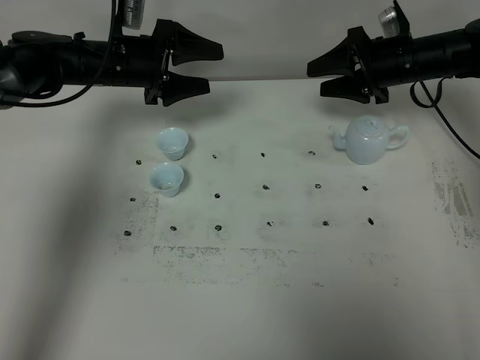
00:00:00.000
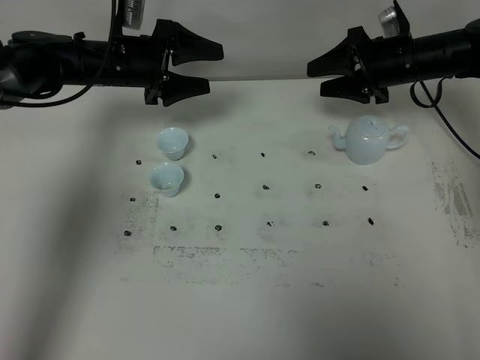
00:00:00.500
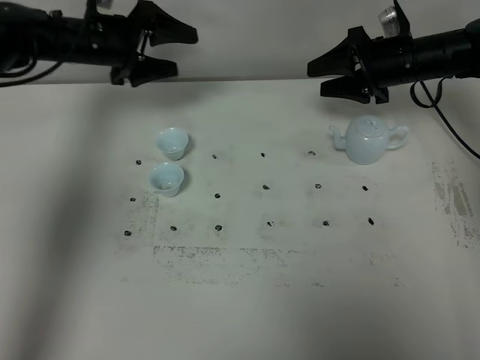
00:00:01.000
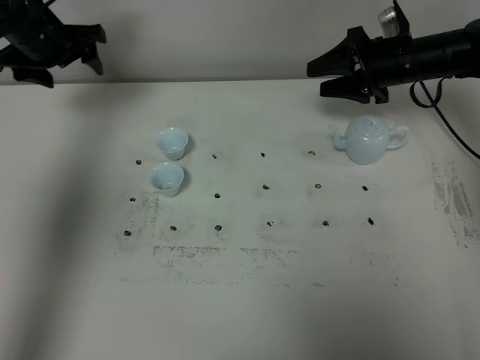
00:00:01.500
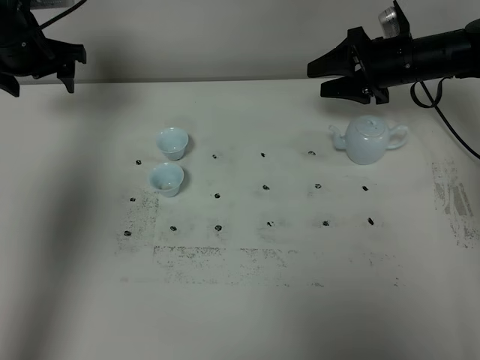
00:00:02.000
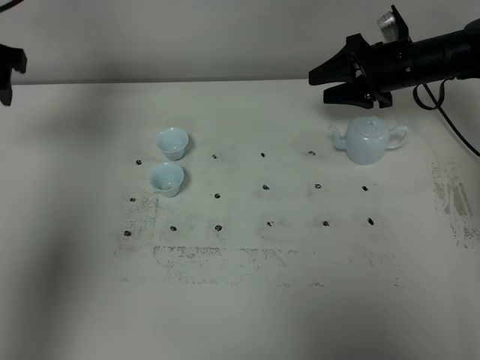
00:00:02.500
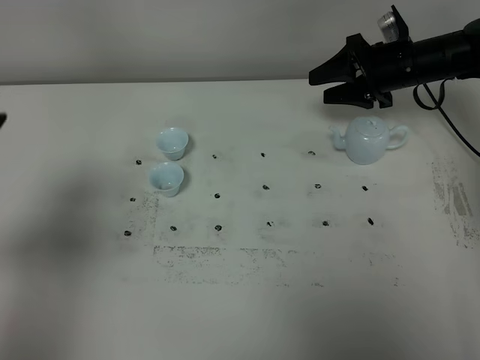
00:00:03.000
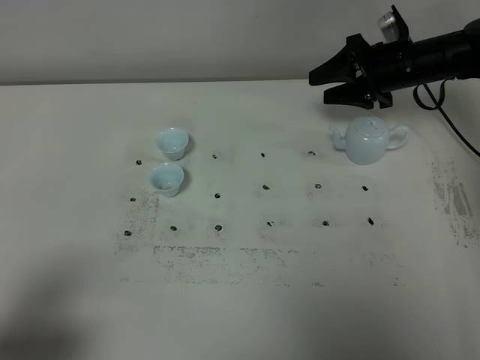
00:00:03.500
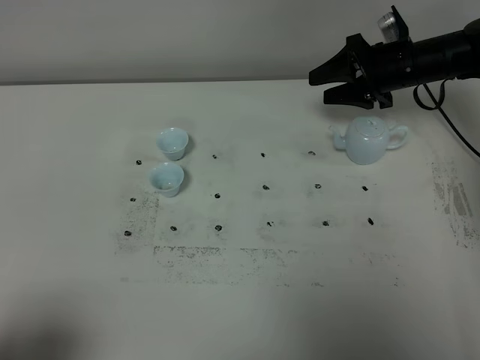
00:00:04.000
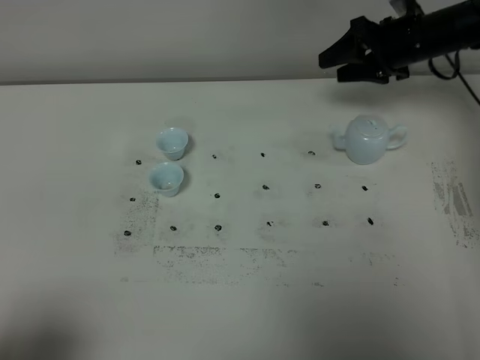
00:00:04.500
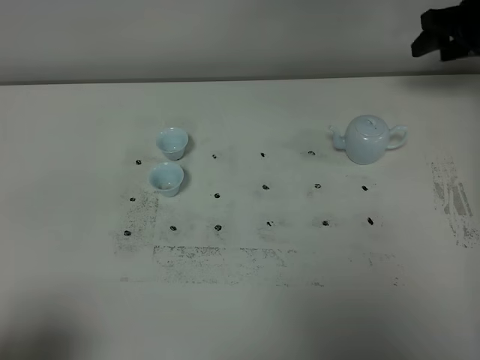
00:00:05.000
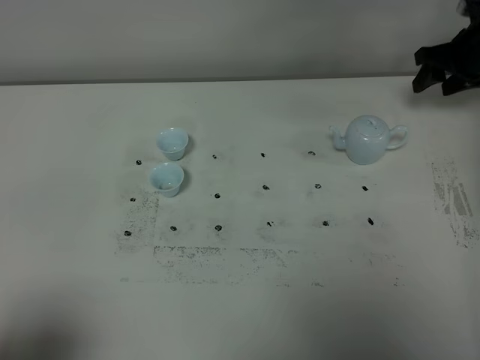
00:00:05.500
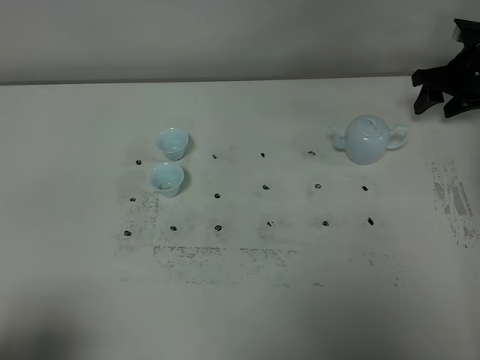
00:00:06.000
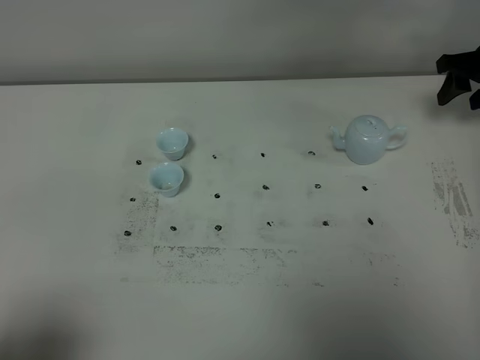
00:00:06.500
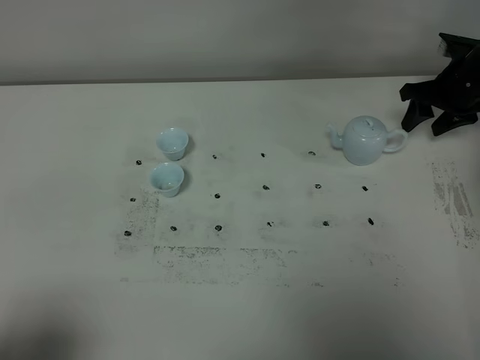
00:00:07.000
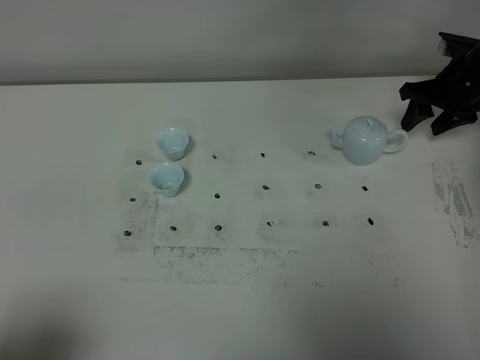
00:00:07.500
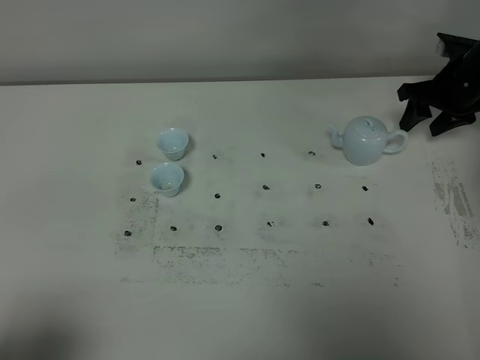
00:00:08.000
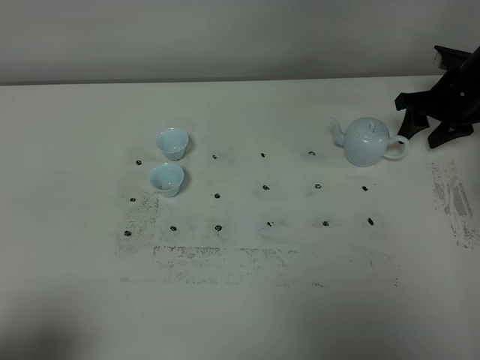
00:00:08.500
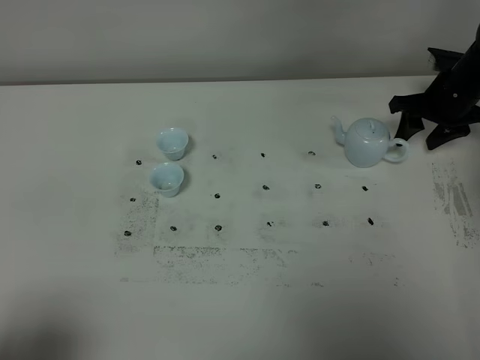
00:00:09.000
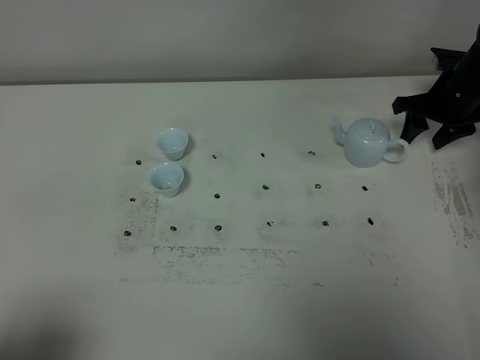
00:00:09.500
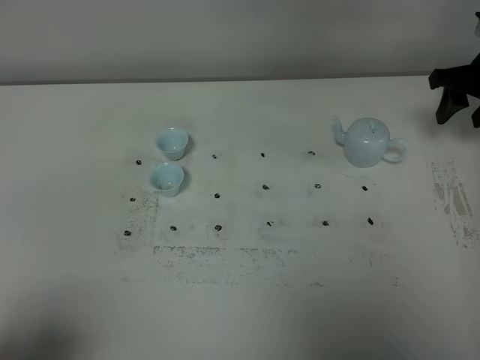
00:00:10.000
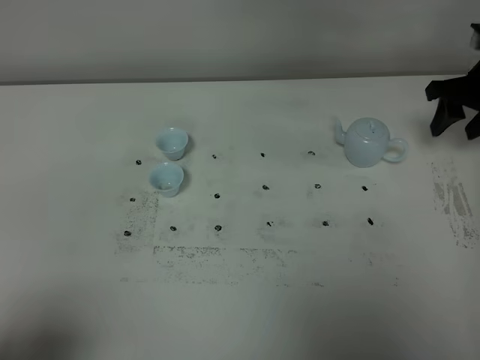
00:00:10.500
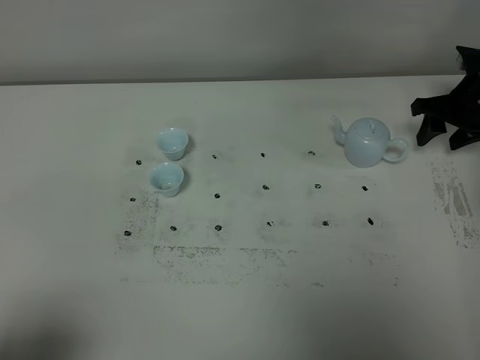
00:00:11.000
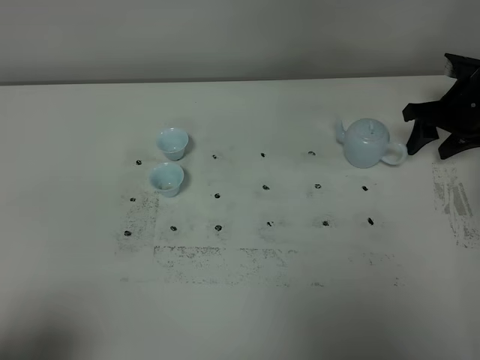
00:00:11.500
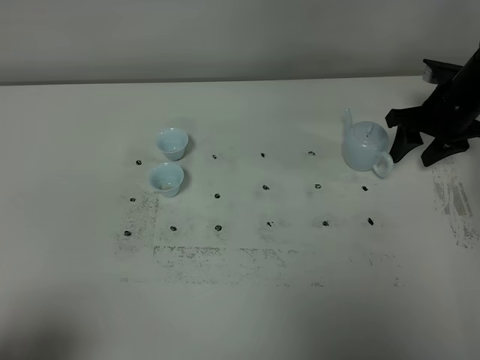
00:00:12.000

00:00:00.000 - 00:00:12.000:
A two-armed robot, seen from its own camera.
Task of the whole recording: grasp the blue porcelain teapot and pour the tea into the two blue porcelain teacups one by one, put the blue porcelain teapot back in its original place.
00:00:00.000 - 00:00:02.000: The left gripper heads to the left and upward, covering about 15 cm.
00:00:02.000 - 00:00:04.000: The left gripper goes approximately 50 cm backward.
00:00:04.000 - 00:00:06.000: The right gripper moves to the right, some 10 cm.
00:00:06.000 - 00:00:08.000: The grippers move only a little.
00:00:08.000 - 00:00:10.000: The right gripper moves upward and backward, roughly 10 cm.
00:00:10.000 - 00:00:12.000: The right gripper heads downward, covering about 5 cm.

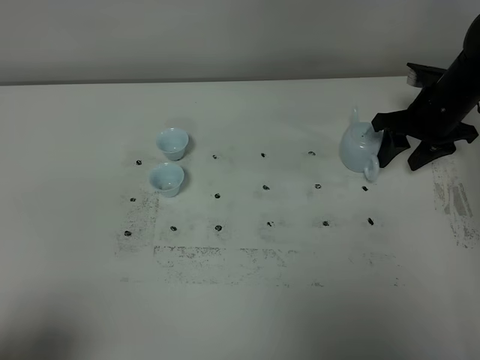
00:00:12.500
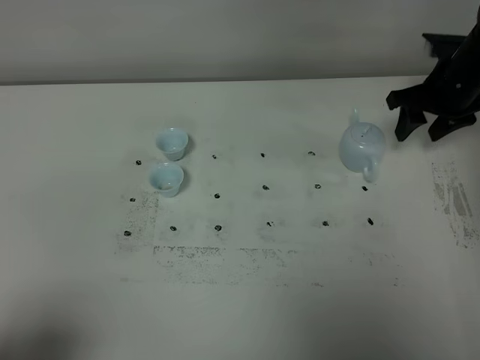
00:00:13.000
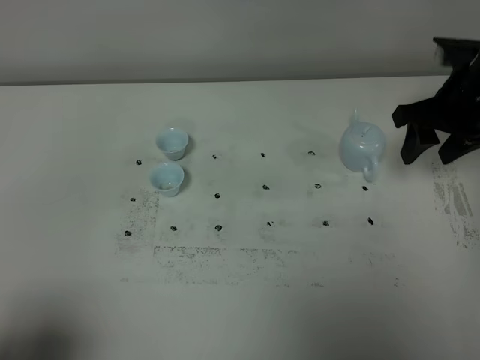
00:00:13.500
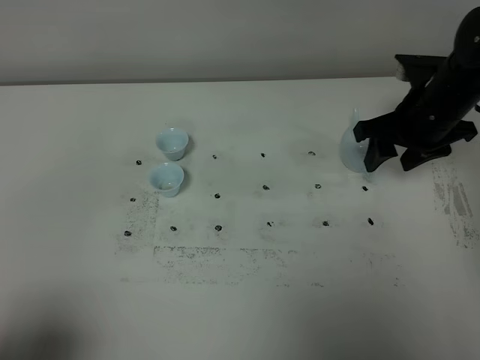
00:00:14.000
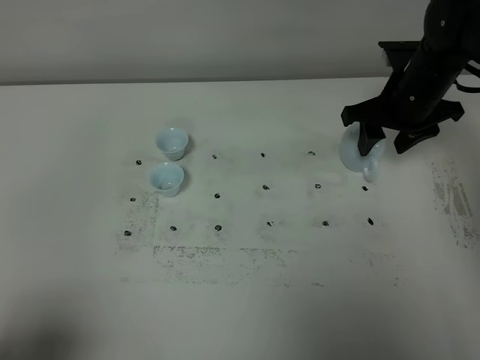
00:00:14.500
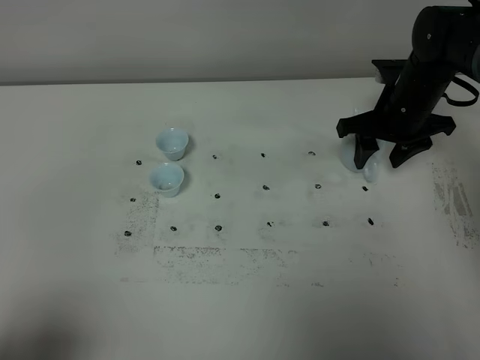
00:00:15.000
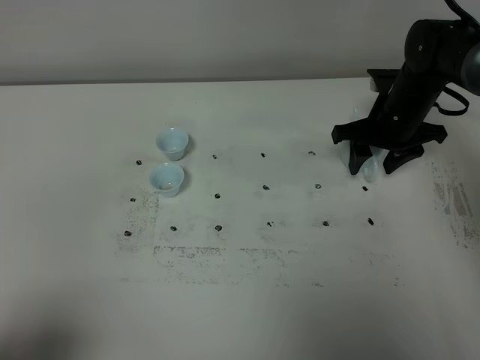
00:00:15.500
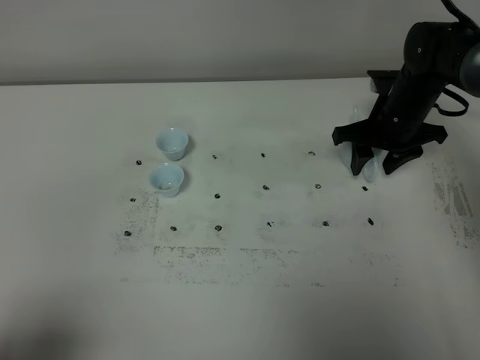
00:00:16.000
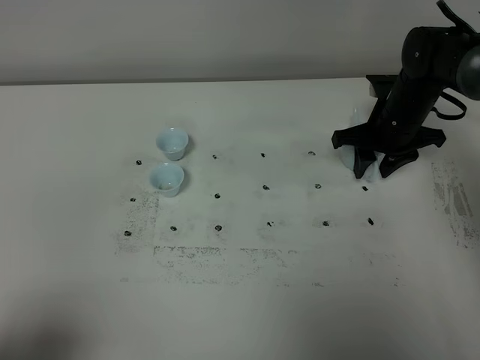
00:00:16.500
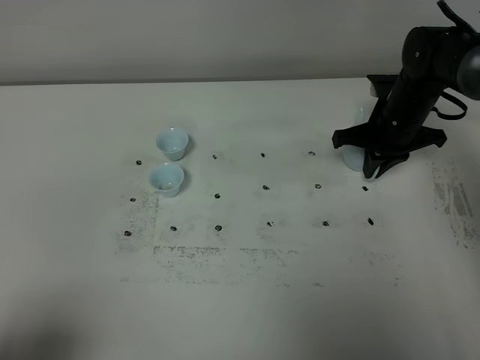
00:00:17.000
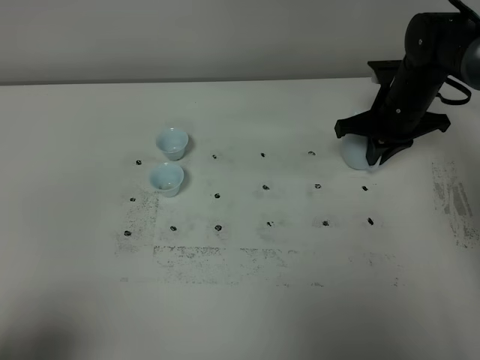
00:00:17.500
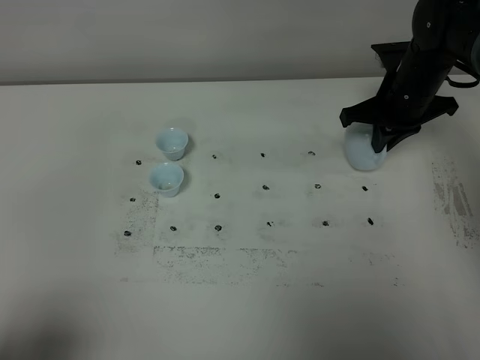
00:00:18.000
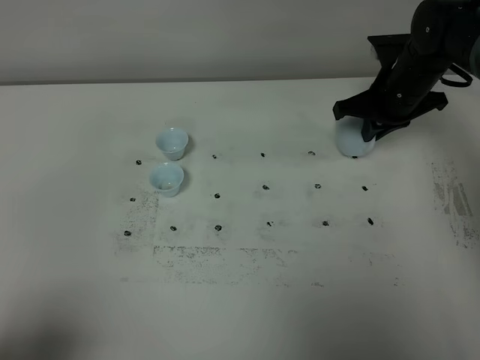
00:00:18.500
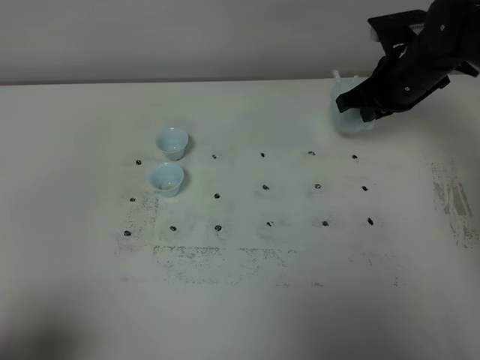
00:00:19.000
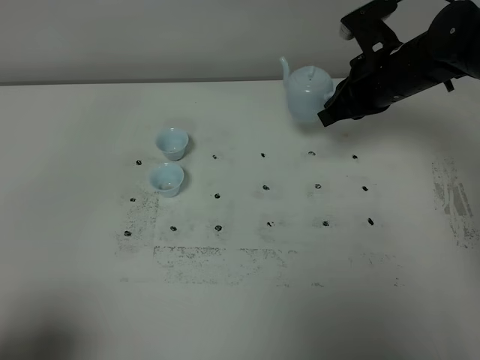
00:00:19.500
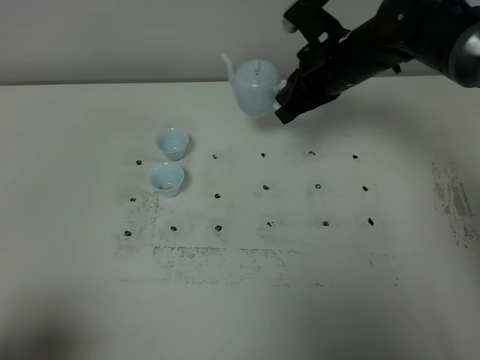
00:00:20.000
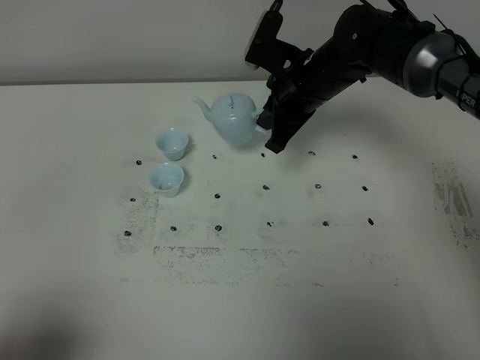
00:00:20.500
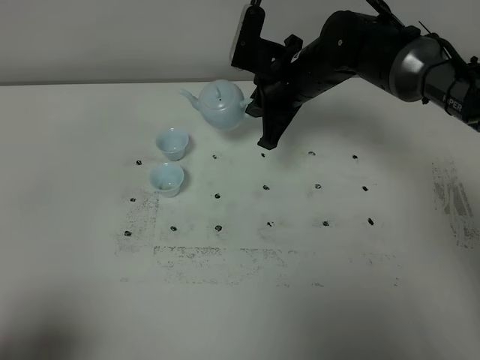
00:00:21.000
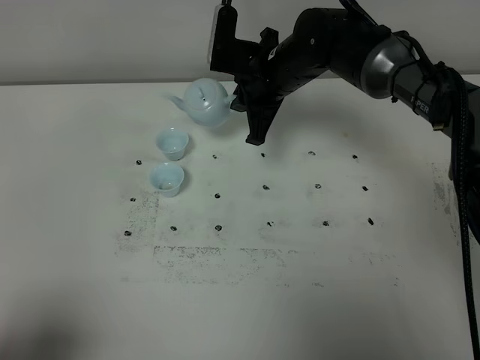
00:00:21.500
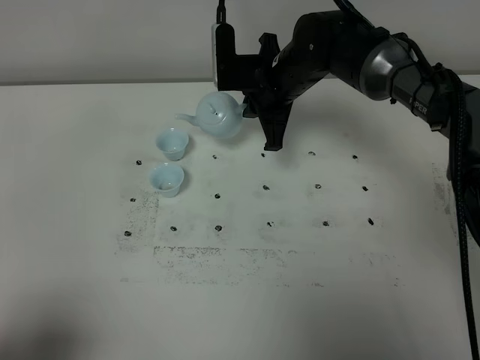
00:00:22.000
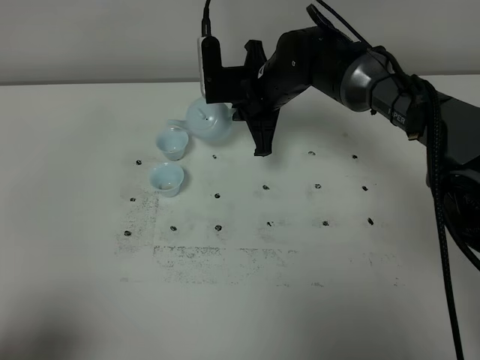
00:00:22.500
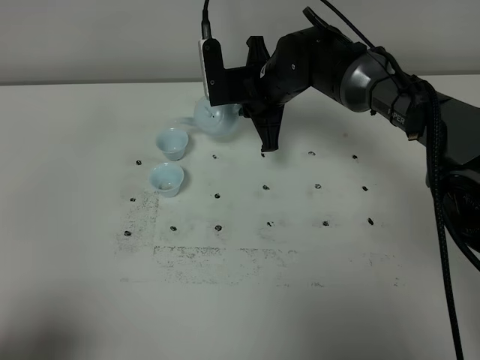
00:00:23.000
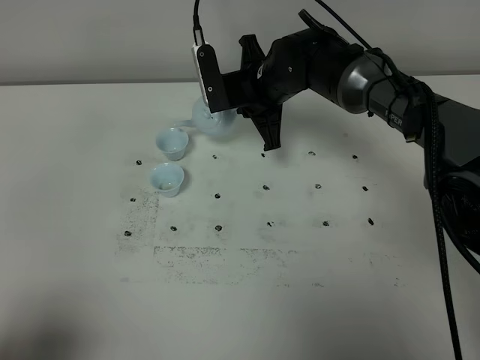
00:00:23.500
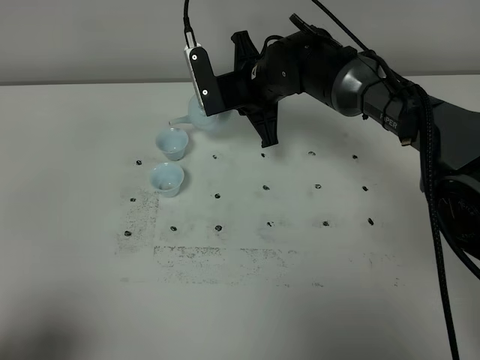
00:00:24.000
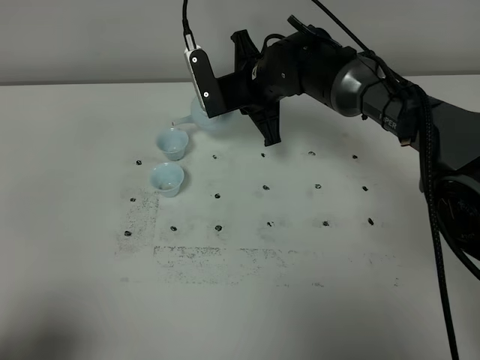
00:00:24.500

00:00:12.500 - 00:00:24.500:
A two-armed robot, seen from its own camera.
Task of the whole recording: grasp the blue porcelain teapot and pour the tea into the two blue porcelain teacups one by one, put the blue porcelain teapot back in its original place.
Step, 00:00:12.500 - 00:00:18.500: Pick up the teapot with the right gripper.
00:00:12.500 - 00:00:14.500: The right gripper moves to the left, roughly 5 cm, and goes backward and returns, approximately 5 cm each way.
00:00:14.500 - 00:00:16.500: The right gripper moves downward, about 5 cm.
00:00:16.500 - 00:00:18.500: The right gripper closes its fingers.
00:00:18.500 - 00:00:20.500: The right gripper is displaced to the left by some 10 cm.
00:00:20.500 - 00:00:22.500: The right gripper changes place by approximately 5 cm.
00:00:22.500 - 00:00:24.500: There are only small adjustments of the grippers.

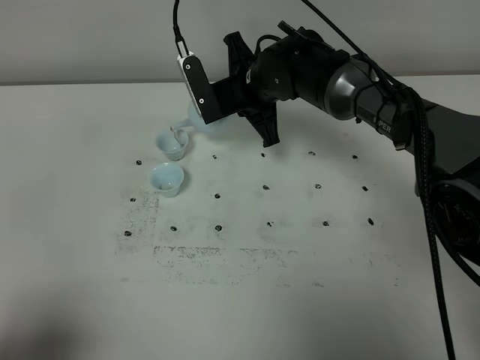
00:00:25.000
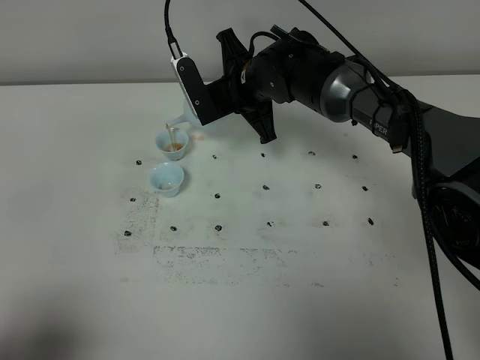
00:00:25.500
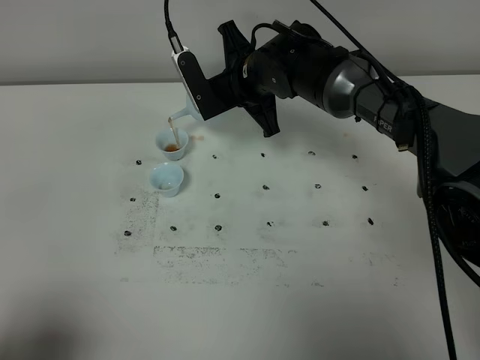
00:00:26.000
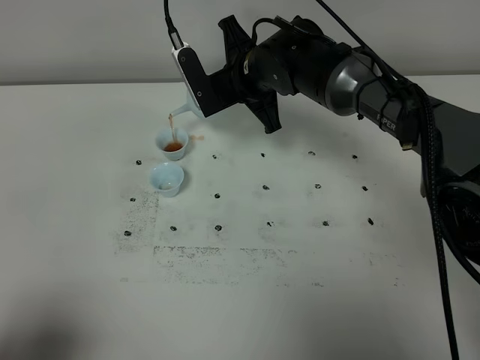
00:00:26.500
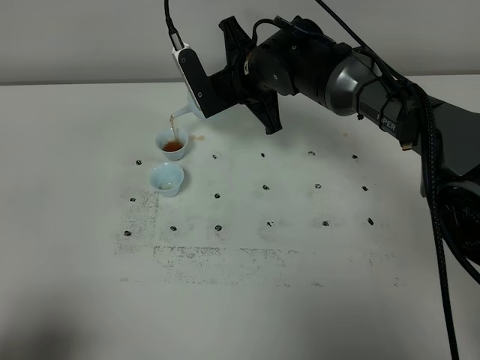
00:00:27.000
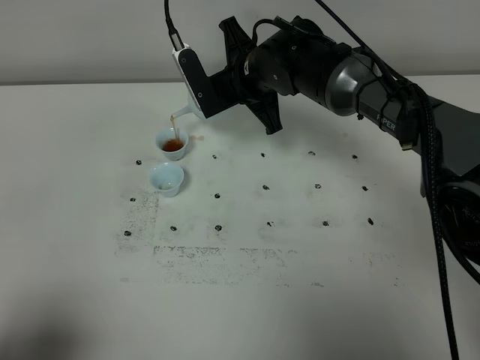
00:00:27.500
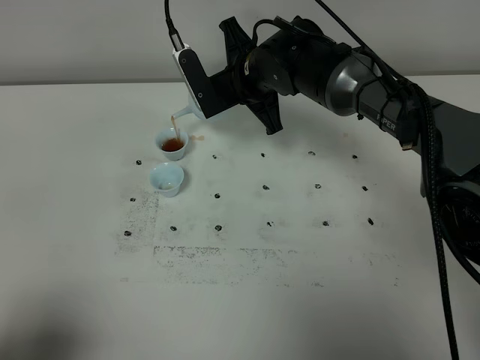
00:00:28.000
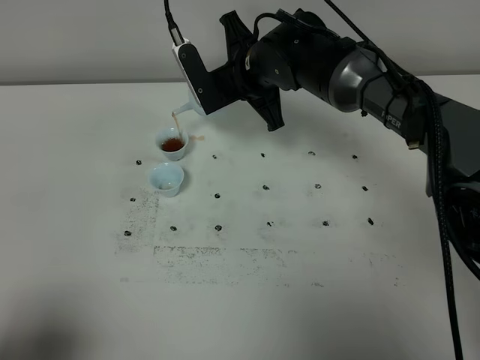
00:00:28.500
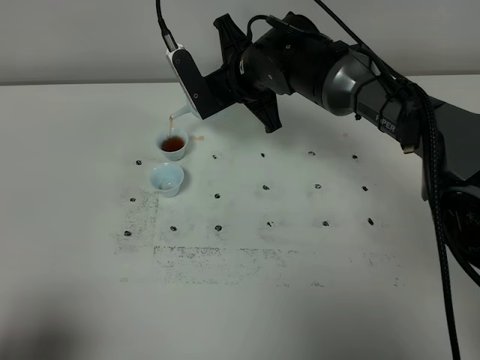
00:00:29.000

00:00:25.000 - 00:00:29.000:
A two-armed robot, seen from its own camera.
Task of the whole recording: grasp the blue porcelain teapot and pour the tea into the two blue porcelain teacups one by one, put the blue porcelain teapot back in its original place.
00:00:25.000 - 00:00:27.000: The grippers stay close to where they were, moving slightly.
00:00:27.000 - 00:00:29.000: Both grippers stay about where they are.
